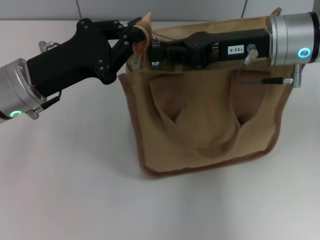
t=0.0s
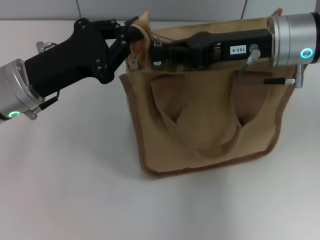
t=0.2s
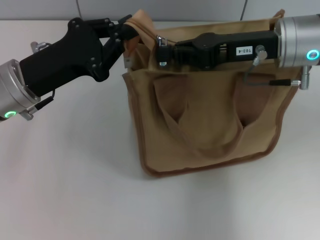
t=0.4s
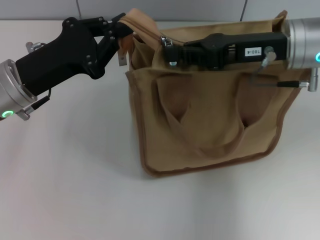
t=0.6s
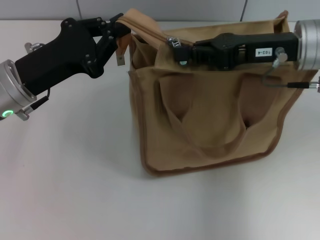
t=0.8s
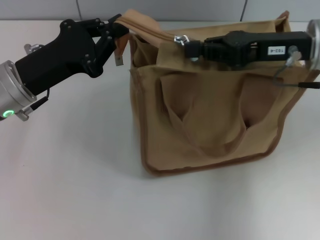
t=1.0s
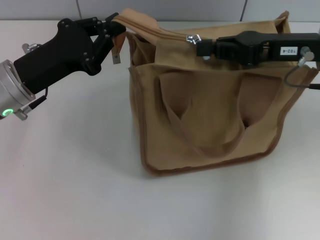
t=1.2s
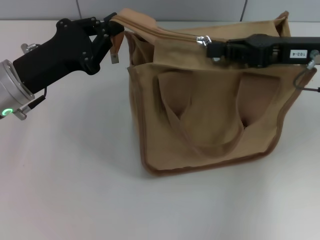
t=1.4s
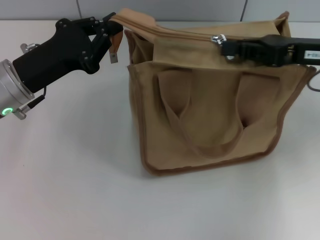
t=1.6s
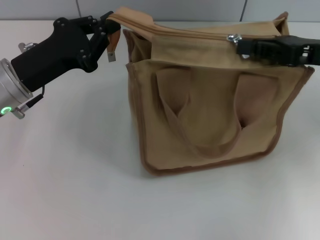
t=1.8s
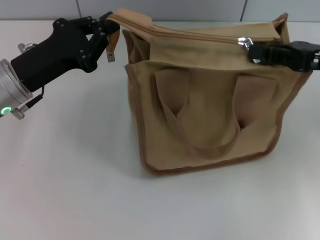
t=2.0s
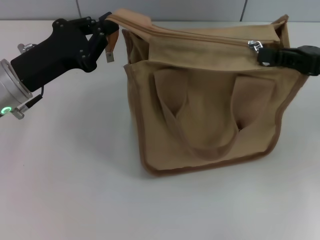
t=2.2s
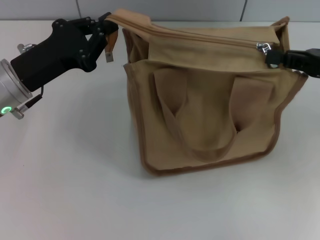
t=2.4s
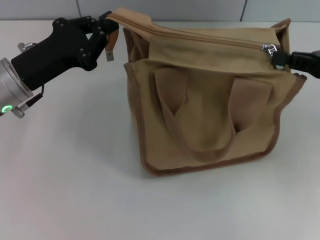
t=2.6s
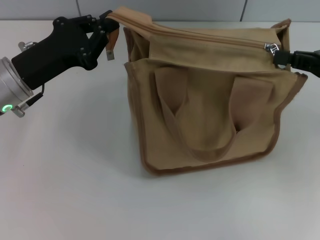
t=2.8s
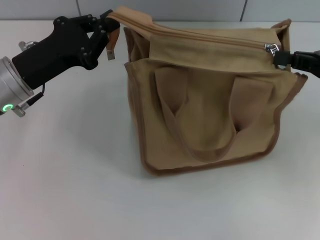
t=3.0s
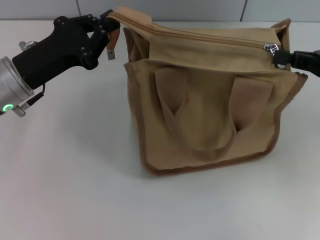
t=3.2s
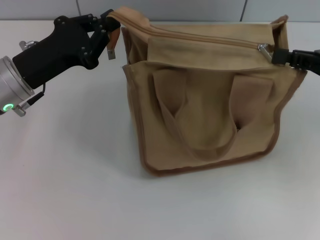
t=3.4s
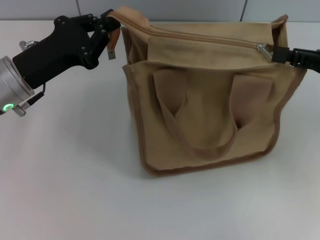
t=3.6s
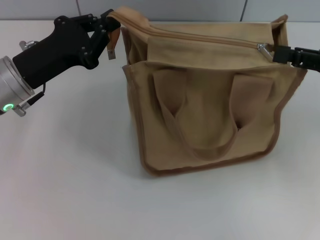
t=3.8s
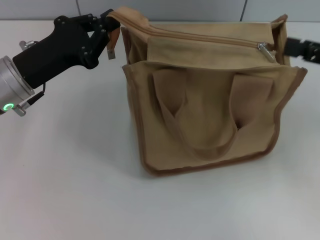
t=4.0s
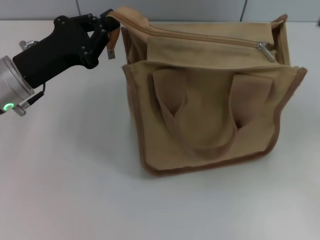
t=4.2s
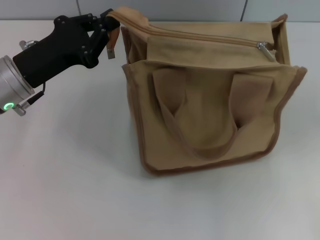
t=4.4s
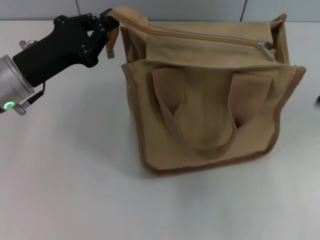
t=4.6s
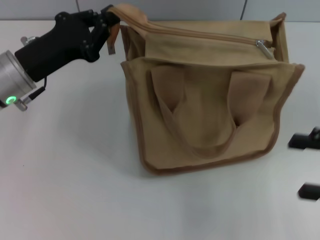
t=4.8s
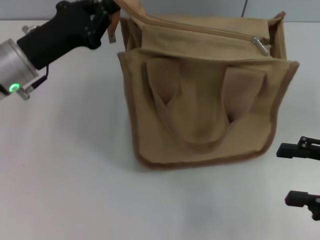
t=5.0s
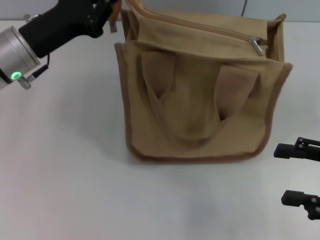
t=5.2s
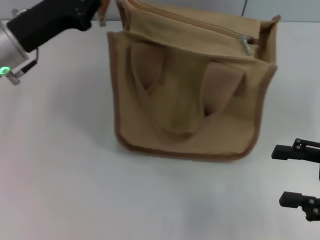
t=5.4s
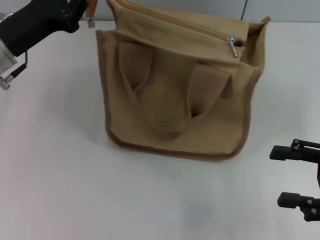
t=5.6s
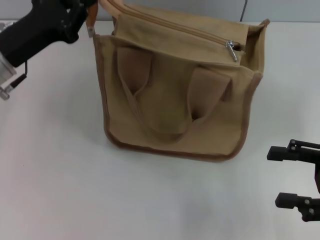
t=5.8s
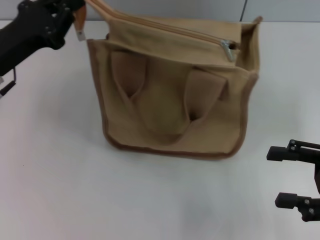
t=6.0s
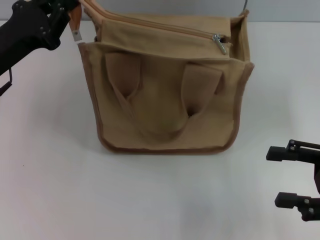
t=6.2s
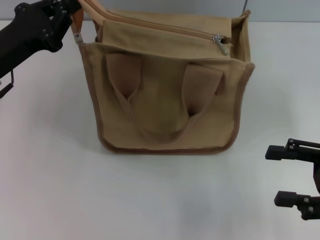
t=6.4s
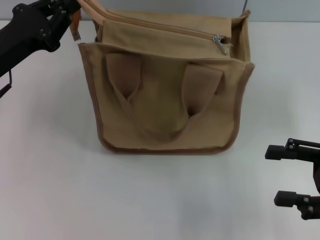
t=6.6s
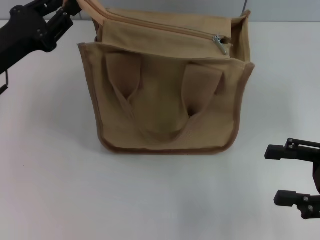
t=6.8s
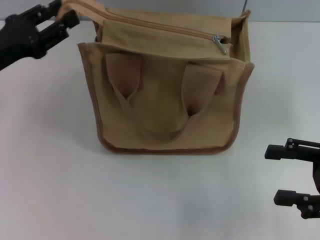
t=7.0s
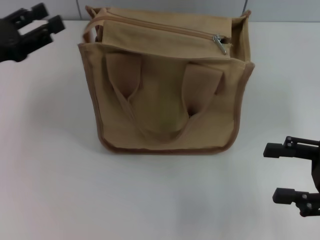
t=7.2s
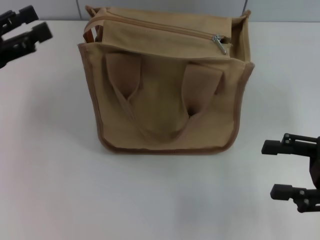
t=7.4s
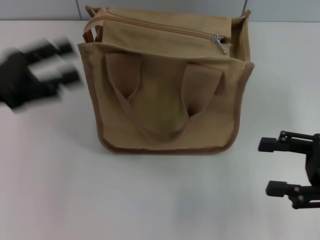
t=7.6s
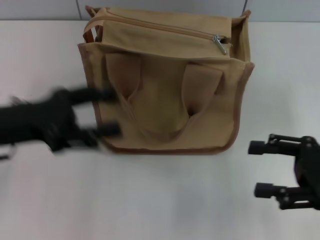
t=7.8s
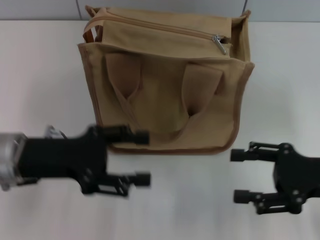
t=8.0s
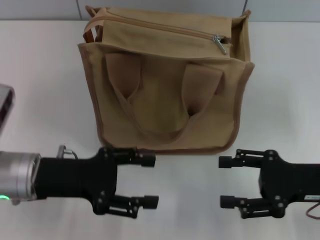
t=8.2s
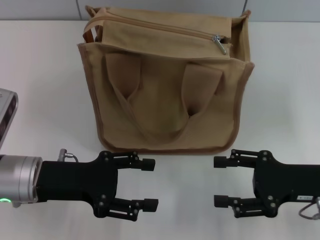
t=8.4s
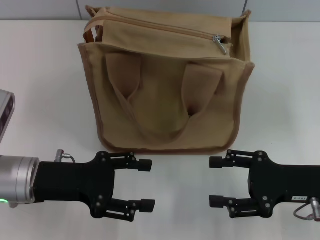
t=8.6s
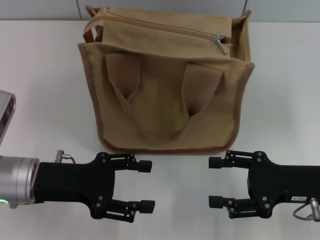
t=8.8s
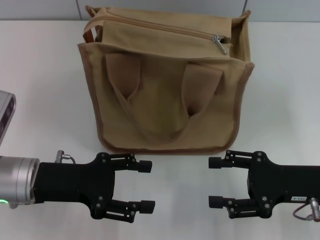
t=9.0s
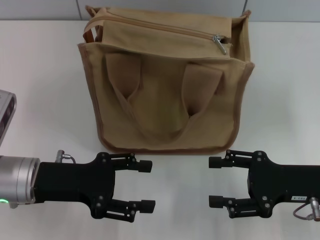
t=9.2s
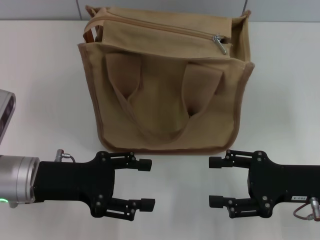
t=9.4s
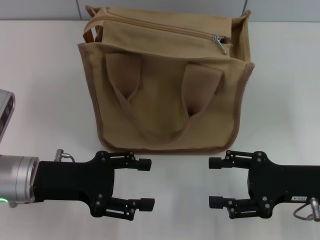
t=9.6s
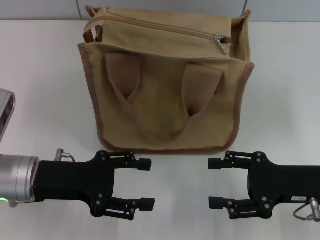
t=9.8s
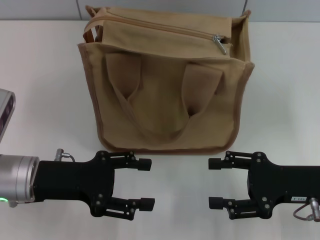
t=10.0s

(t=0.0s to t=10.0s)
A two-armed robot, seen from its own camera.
Step, t=0.0s - t=3.4s: Pull up the zipper with your right hand.
Step, t=3.6s - t=7.0s: Grab the zipper with your left hand.
t=0.0s - t=1.4s: The right gripper moves to the right, approximately 5 cm.
t=1.4s - t=2.8s: The right gripper shifts some 10 cm to the right.
t=2.8s - t=4.2s: The right gripper opens up.
t=4.2s - t=5.8s: The right gripper moves backward and downward, about 10 cm.
t=5.8s - t=7.2s: The left gripper heads to the left, covering approximately 5 cm, and opens.
t=7.2s - t=8.6s: The left gripper moves to the right, downward and backward, roughly 15 cm, and opens its fingers; the right gripper is displaced to the left by approximately 5 cm.
t=8.6s - t=10.0s: Both grippers stay about where they are.

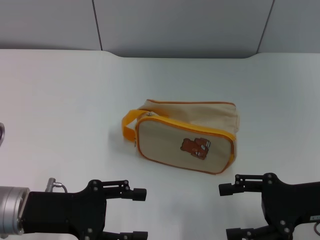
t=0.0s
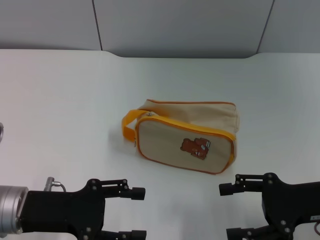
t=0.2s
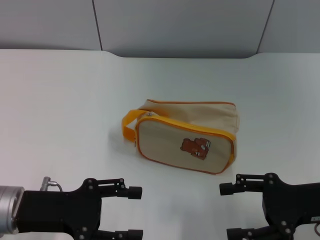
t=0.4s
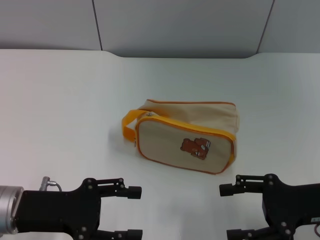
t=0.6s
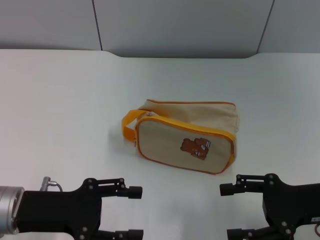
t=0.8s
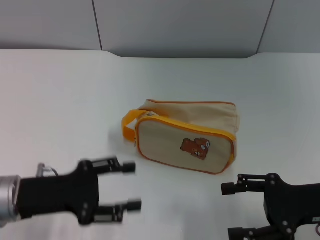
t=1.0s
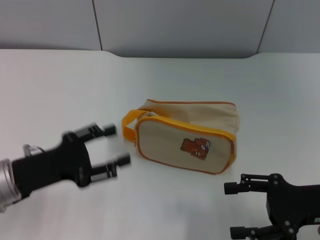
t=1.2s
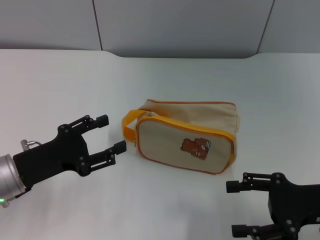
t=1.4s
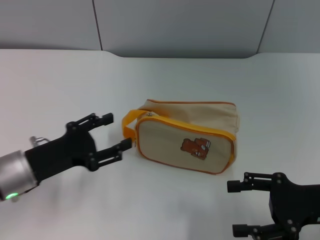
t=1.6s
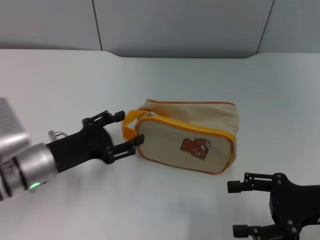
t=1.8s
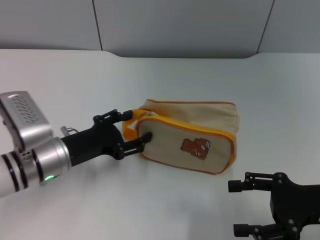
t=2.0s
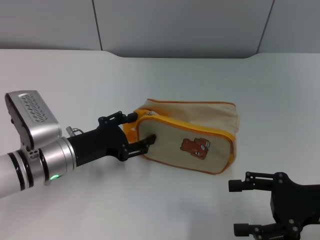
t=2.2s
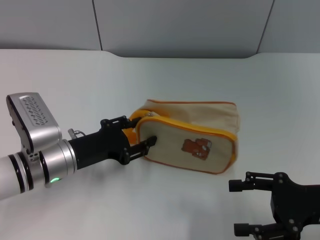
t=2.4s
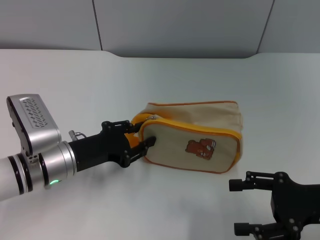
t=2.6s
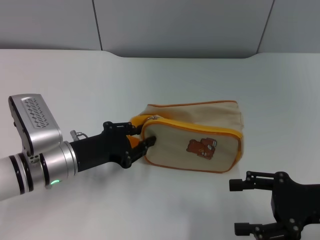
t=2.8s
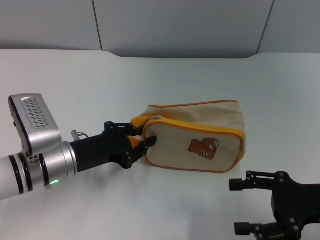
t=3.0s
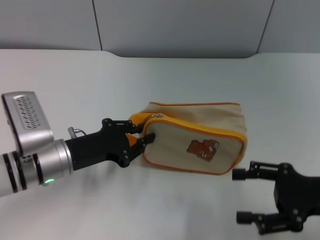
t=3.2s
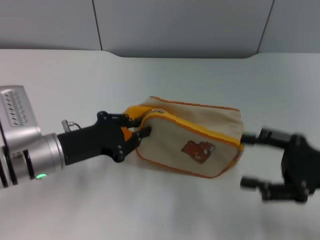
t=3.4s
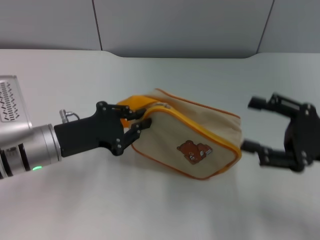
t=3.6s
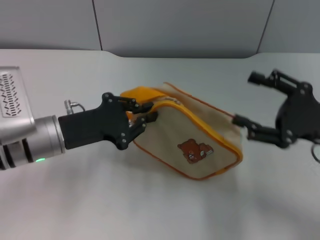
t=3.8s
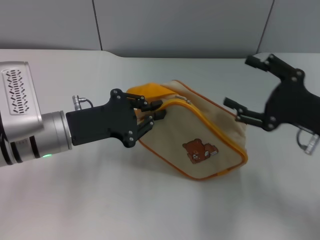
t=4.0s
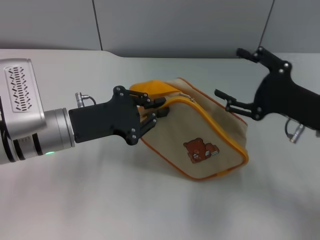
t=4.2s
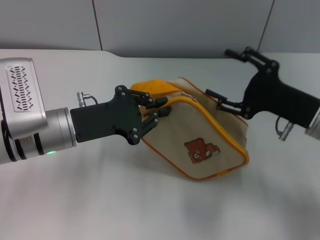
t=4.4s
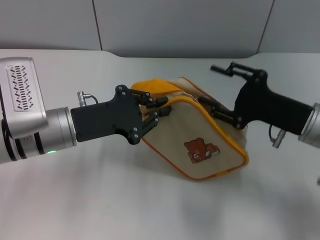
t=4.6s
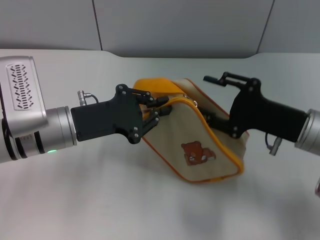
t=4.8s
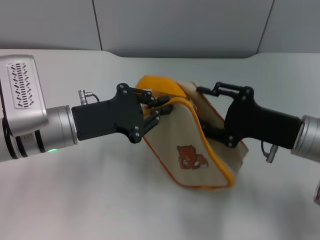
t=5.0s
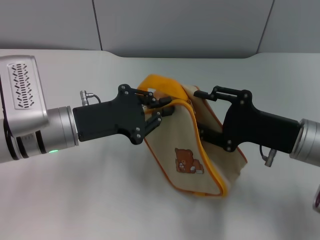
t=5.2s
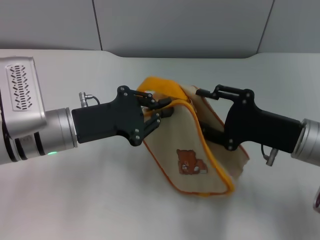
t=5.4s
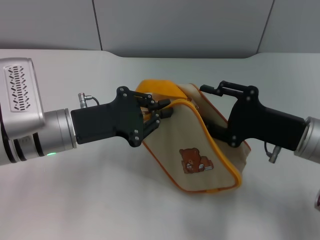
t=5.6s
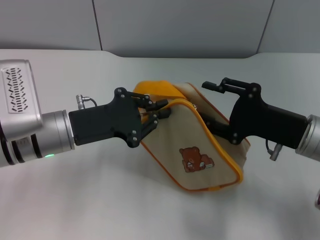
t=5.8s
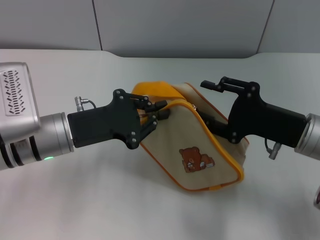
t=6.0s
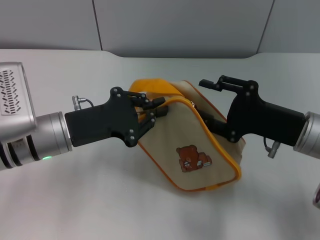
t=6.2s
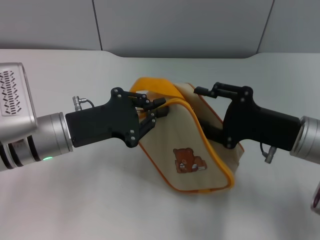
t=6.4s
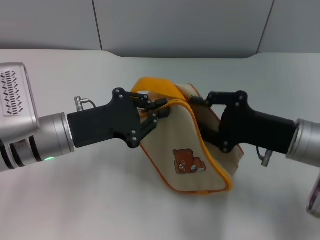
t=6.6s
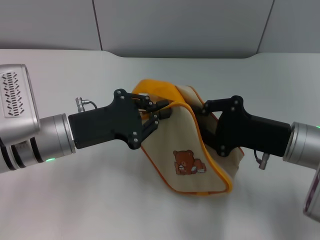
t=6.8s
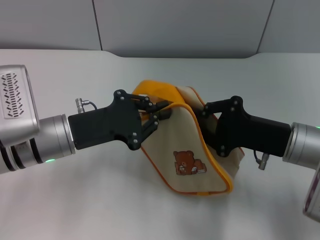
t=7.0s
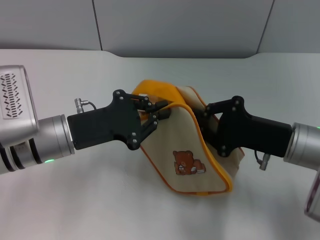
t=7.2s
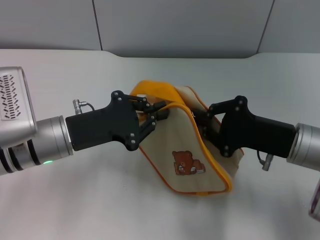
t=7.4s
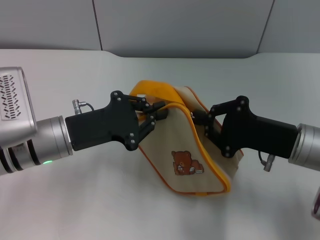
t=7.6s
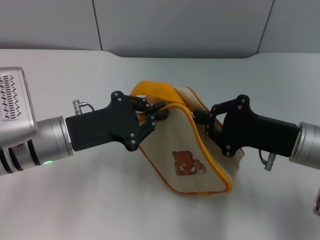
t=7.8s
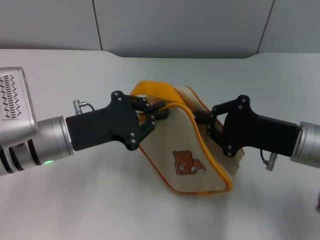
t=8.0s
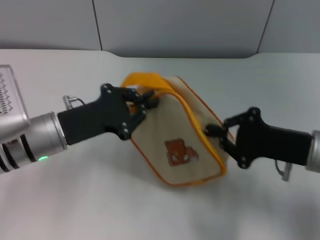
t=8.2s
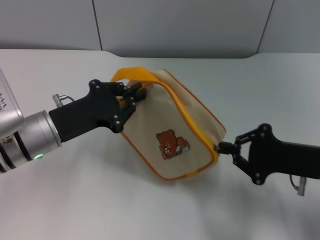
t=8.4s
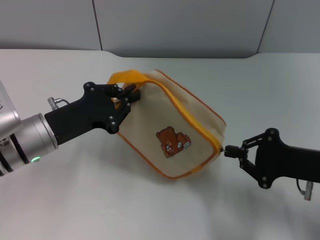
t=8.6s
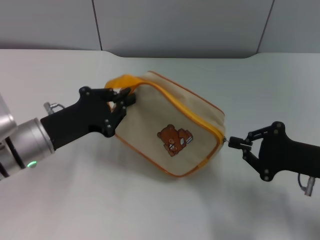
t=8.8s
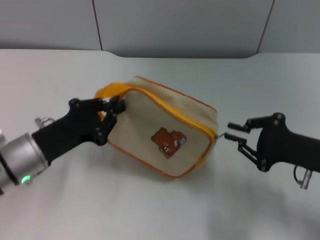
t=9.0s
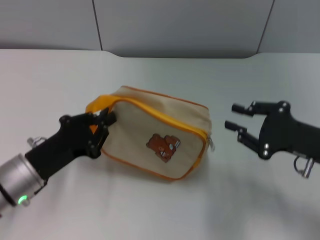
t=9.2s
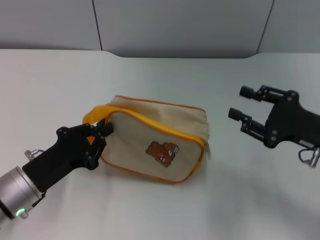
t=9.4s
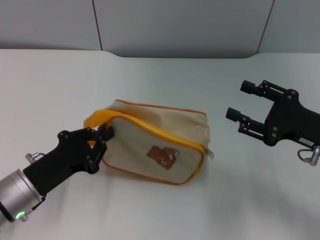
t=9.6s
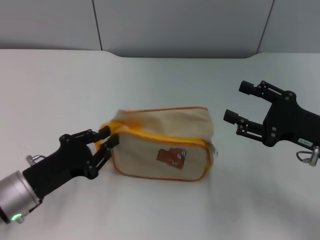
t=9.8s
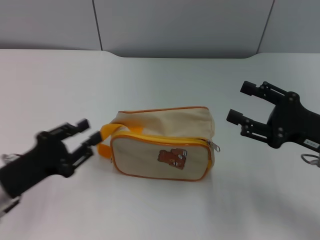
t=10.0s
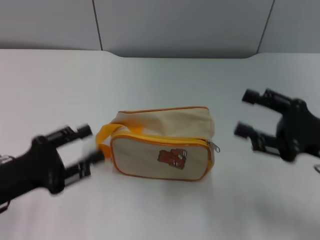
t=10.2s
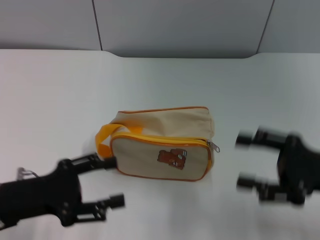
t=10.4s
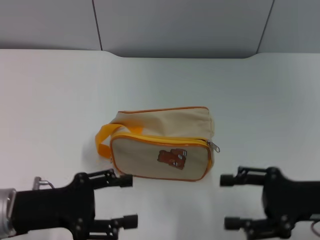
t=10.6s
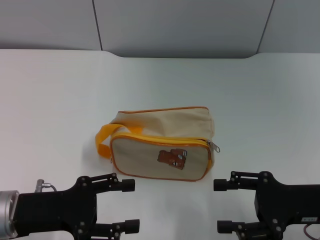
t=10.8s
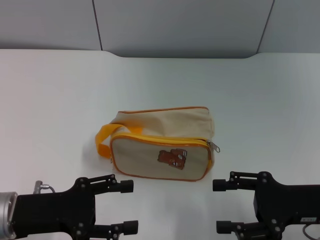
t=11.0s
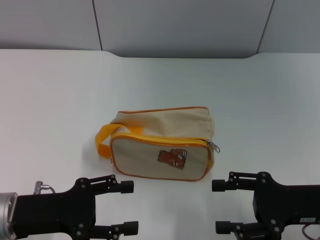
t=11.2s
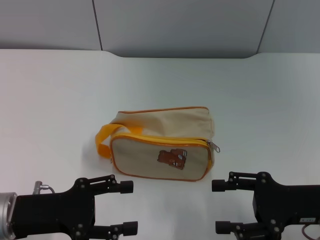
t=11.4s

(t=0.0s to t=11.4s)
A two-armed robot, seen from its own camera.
Step, t=0.0s - t=3.6s: Pick up the bag with left gripper.
Step, t=3.8s - t=9.0s: Unzip the zipper of bag with right gripper.
Step, t=9.2s - t=10.0s: Place the bag on the table with left gripper.
t=1.4s - t=2.8s: The left gripper goes about 5 cm to the right, and closes.
t=2.8s - t=4.2s: The right gripper goes approximately 5 cm forward, while the left gripper moves upward, some 5 cm, and closes its fingers.
t=4.2s - t=5.6s: The grippers move only a little.
t=5.6s - t=7.2s: The right gripper closes.
t=7.2s - t=8.6s: The right gripper shifts roughly 5 cm to the right.
t=8.6s - t=10.0s: The right gripper opens up; the left gripper shifts roughly 10 cm backward and to the left.
t=10.0s - t=11.4s: The left gripper opens up.

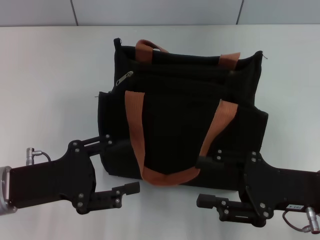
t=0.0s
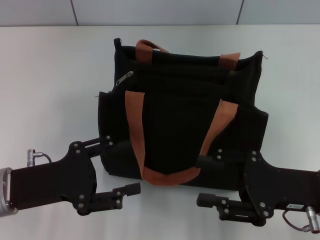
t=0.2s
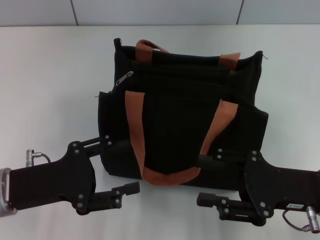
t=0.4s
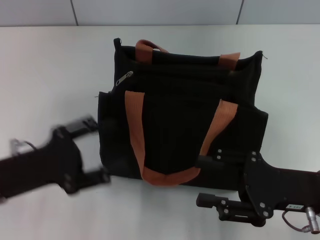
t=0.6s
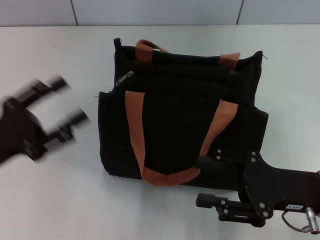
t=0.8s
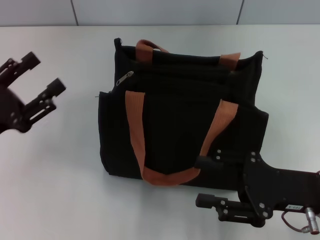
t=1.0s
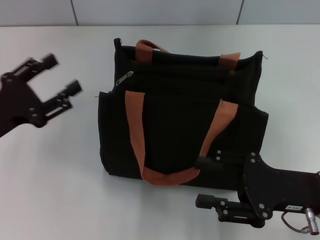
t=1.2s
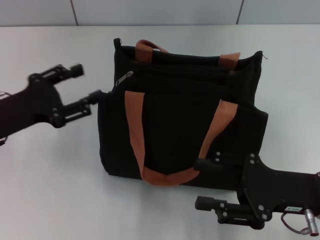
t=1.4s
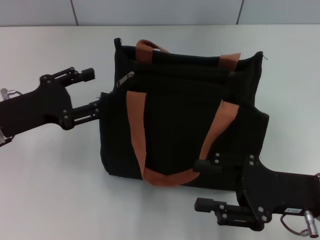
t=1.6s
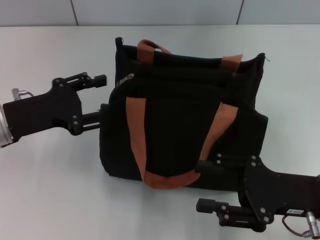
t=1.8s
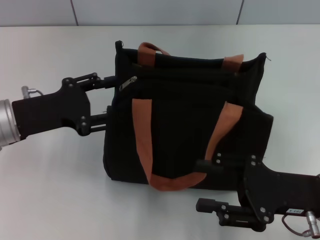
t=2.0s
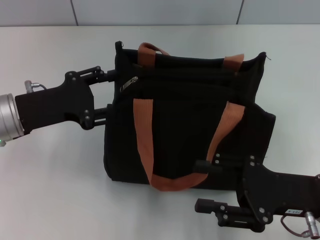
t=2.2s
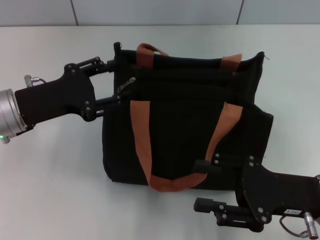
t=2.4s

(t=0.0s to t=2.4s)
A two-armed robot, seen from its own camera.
t=0.0s - t=1.2s: The left gripper shifts by approximately 5 cm.
t=1.2s - t=2.4s: The left gripper ends up about 5 cm from where it was.
